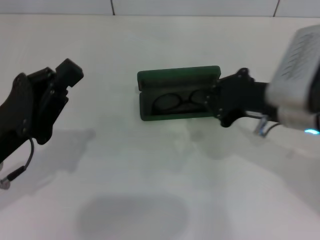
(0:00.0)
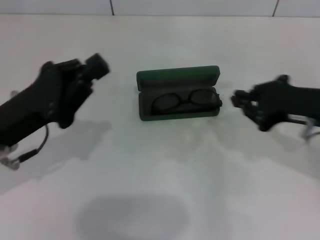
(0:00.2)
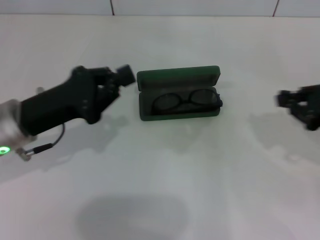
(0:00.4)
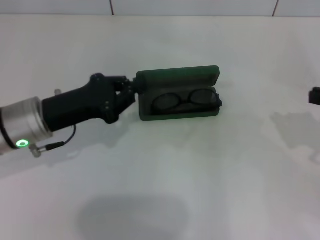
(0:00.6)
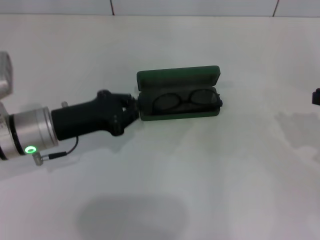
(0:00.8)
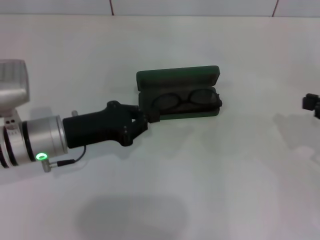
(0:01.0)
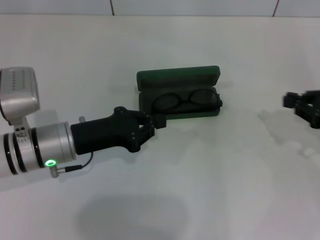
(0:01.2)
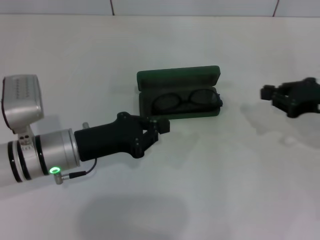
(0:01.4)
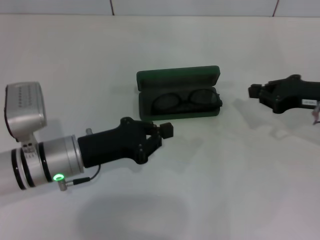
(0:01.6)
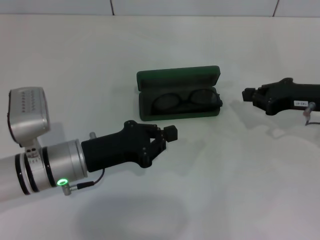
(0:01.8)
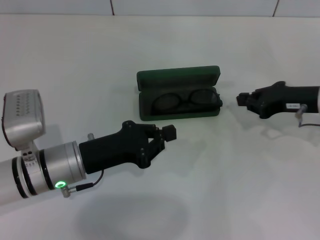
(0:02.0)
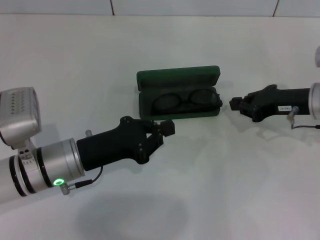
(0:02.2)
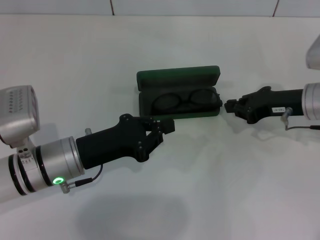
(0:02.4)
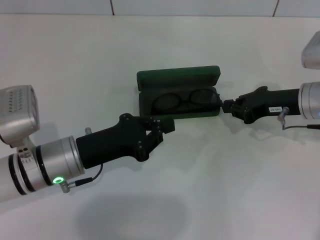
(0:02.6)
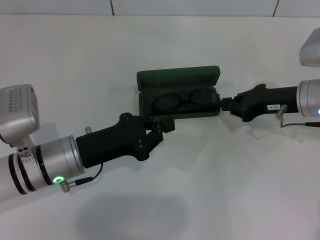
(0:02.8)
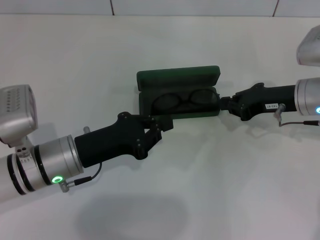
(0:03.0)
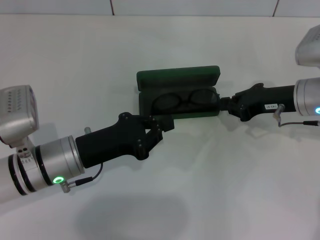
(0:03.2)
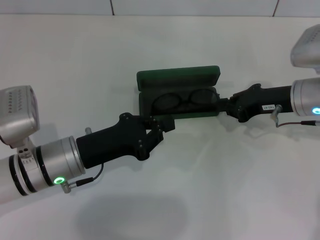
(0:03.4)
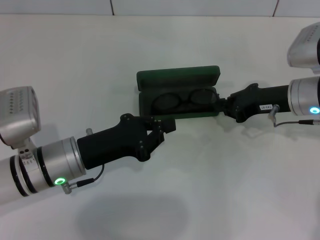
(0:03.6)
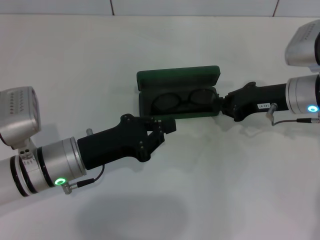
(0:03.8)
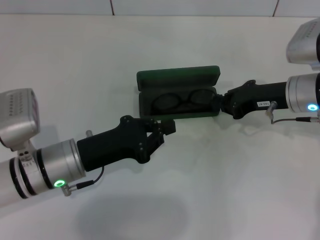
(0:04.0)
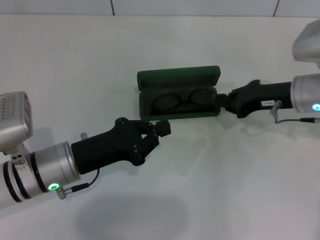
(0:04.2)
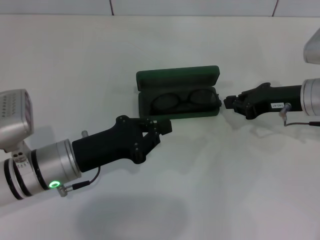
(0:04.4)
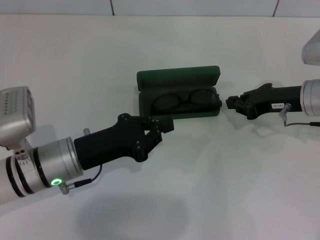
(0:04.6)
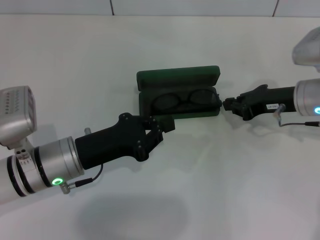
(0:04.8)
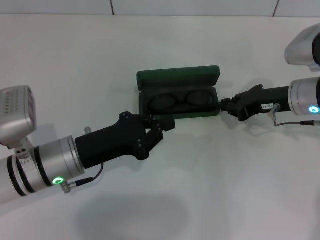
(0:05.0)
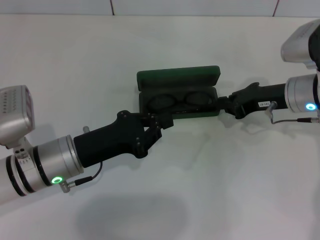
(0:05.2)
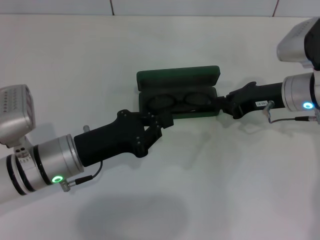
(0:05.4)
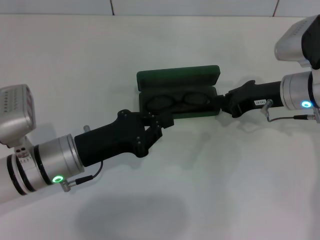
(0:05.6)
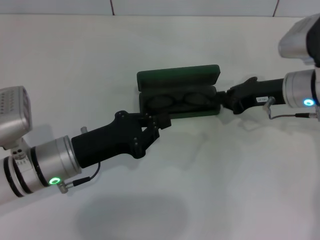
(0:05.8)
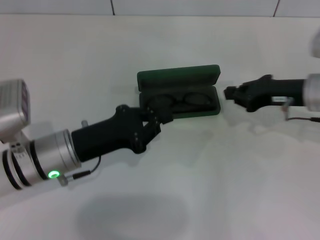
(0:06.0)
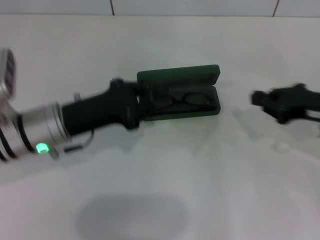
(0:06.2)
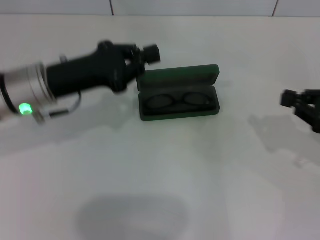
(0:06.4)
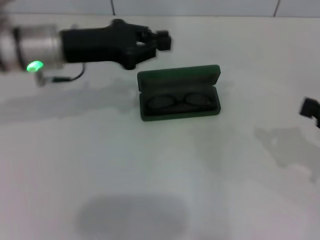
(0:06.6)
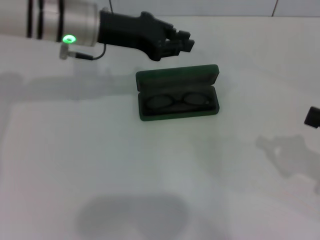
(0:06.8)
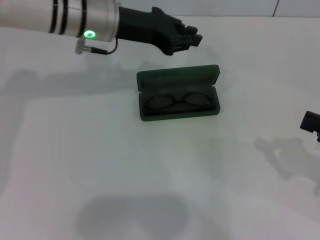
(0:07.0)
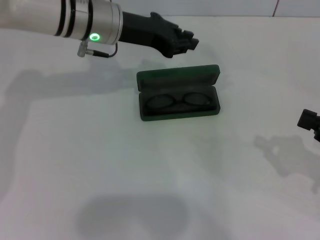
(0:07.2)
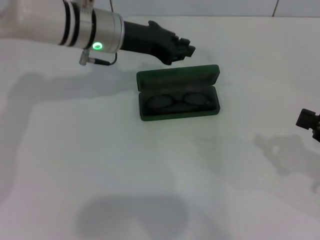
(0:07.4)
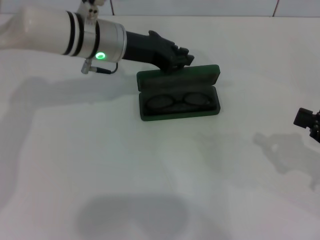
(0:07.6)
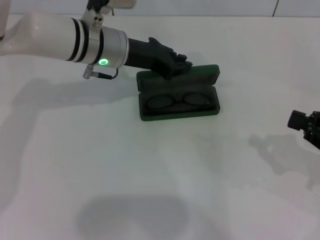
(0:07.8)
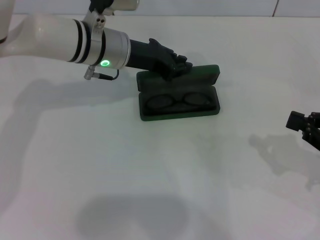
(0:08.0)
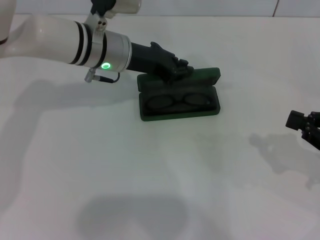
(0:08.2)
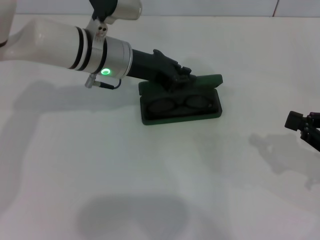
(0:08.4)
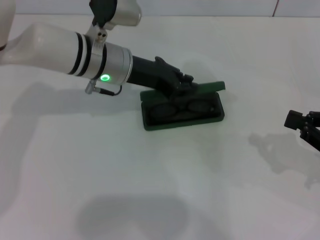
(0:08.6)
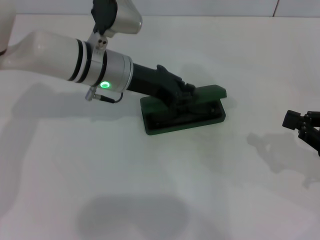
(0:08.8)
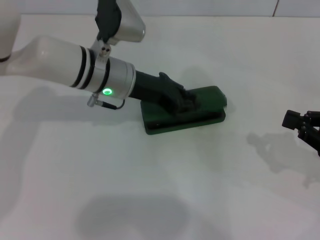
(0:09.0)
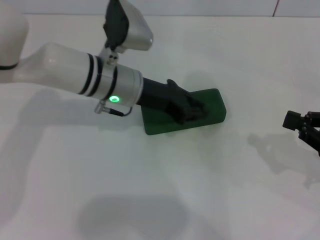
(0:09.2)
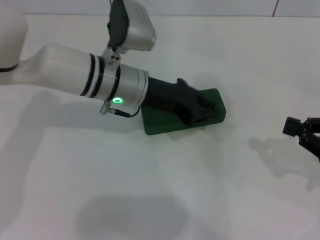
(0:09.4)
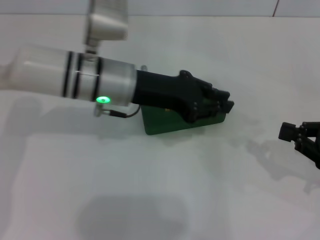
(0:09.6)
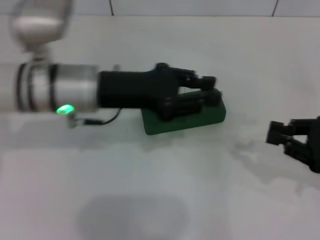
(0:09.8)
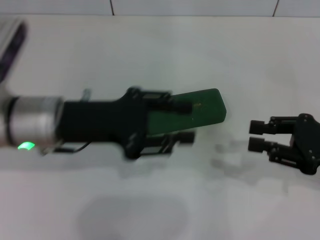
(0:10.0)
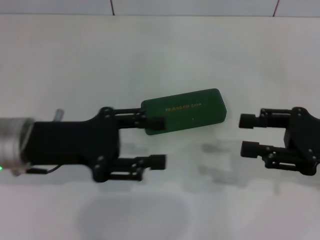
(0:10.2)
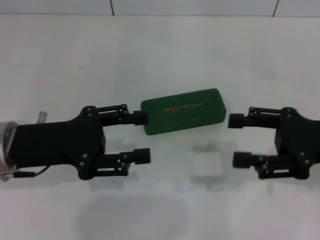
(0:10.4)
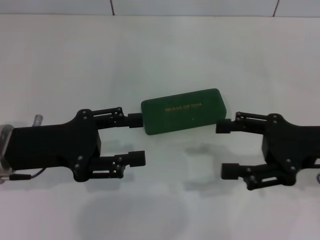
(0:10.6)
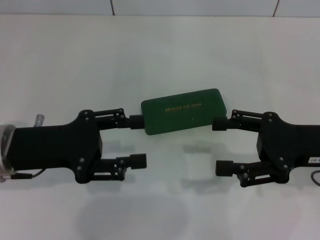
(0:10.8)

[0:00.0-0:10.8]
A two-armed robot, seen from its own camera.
Step, 0:00.0 to 0:08.8: Close the glasses case with your left hand.
0:00.0 to 0:01.6: Both grippers travel together to the right, forward and downward, approximately 10 cm.
0:01.6 to 0:03.0: The right gripper is displaced to the left by approximately 5 cm.
0:03.0 to 0:04.6: The grippers stay close to where they were, moving slightly.
0:04.6 to 0:06.2: The right gripper moves backward, roughly 5 cm, while the left gripper changes place by roughly 5 cm.
0:06.2 to 0:07.8: The left gripper is displaced forward and to the right by roughly 15 cm; the right gripper heads backward and to the right, covering about 10 cm.
0:07.8 to 0:09.2: The left gripper moves some 5 cm.
0:09.2 to 0:10.8: The left gripper goes some 20 cm to the left and backward, and opens; the right gripper shifts some 10 cm to the left, and opens its fingers.

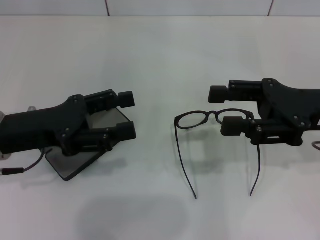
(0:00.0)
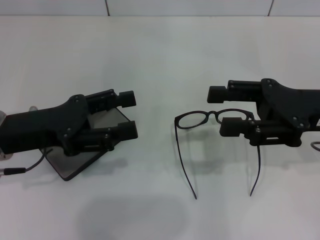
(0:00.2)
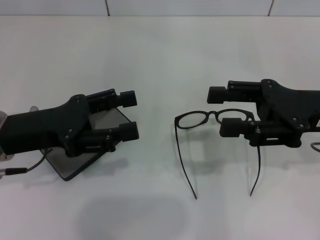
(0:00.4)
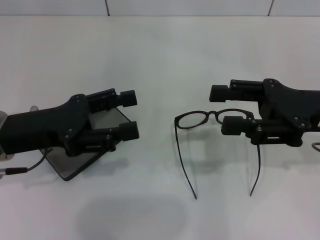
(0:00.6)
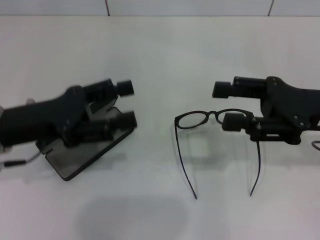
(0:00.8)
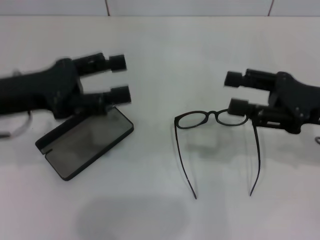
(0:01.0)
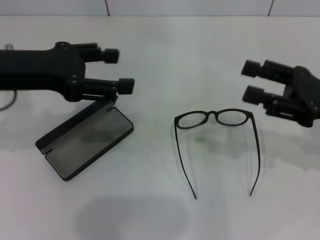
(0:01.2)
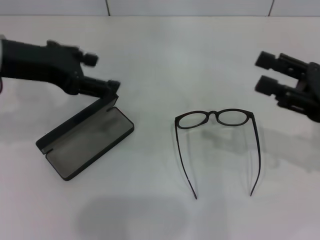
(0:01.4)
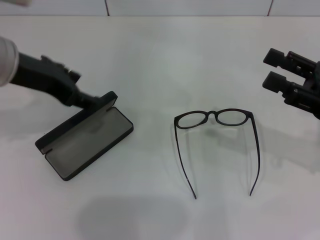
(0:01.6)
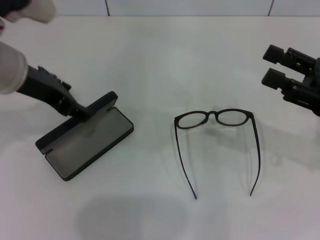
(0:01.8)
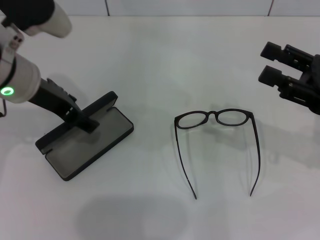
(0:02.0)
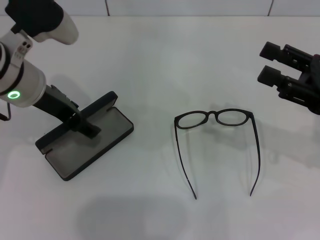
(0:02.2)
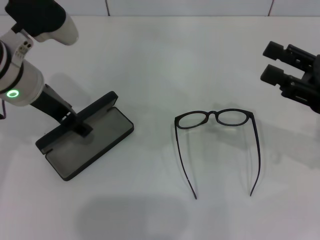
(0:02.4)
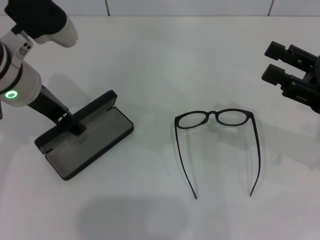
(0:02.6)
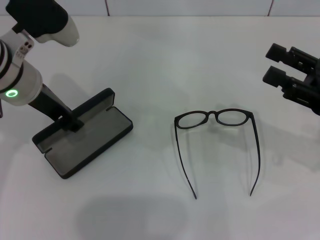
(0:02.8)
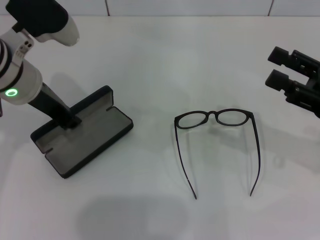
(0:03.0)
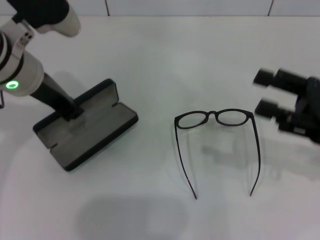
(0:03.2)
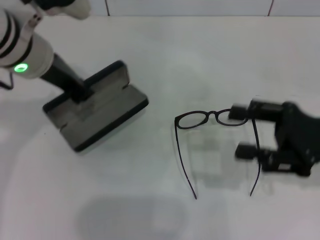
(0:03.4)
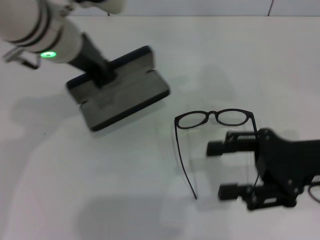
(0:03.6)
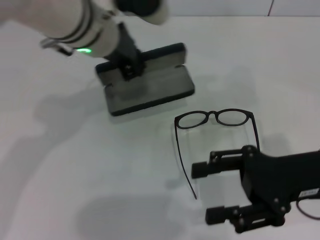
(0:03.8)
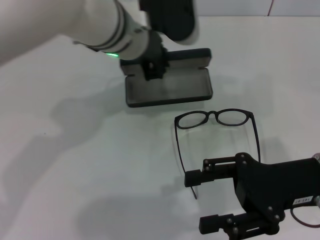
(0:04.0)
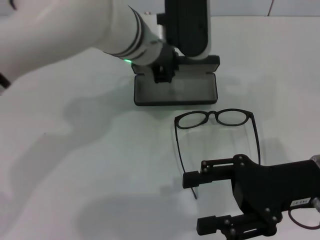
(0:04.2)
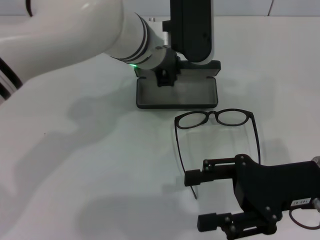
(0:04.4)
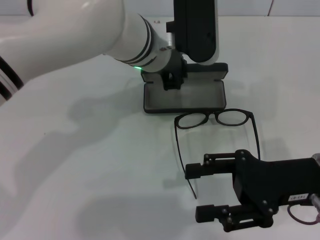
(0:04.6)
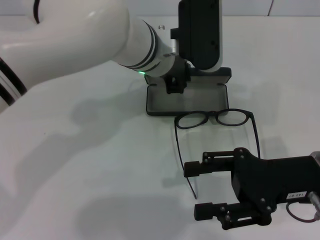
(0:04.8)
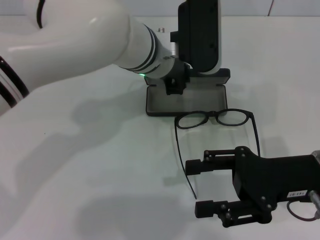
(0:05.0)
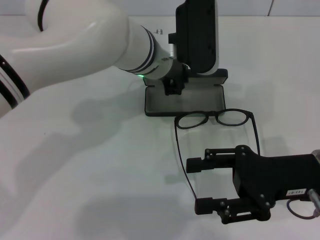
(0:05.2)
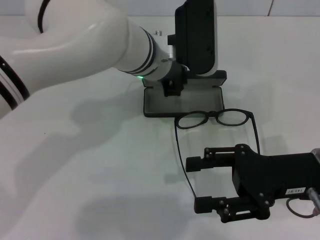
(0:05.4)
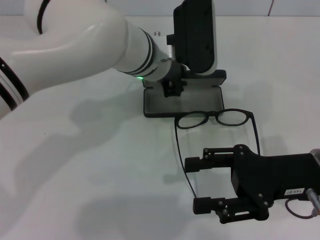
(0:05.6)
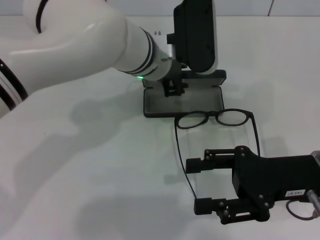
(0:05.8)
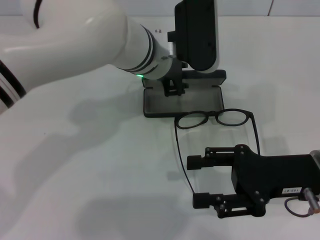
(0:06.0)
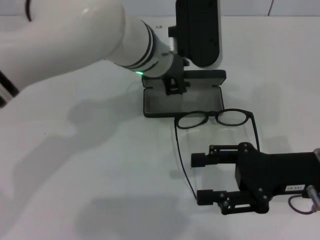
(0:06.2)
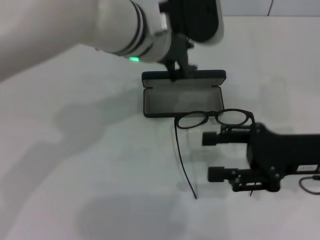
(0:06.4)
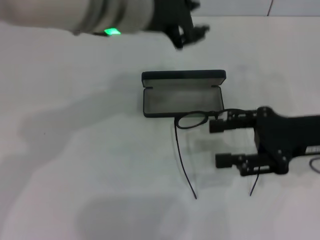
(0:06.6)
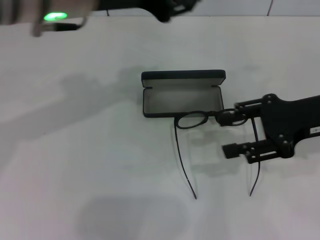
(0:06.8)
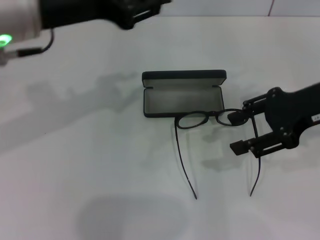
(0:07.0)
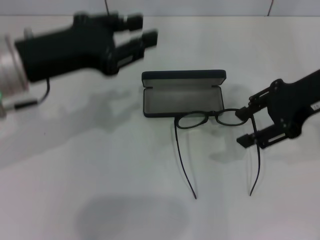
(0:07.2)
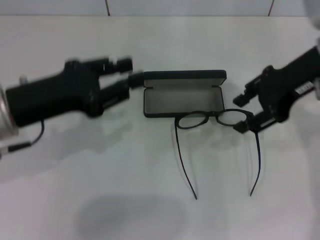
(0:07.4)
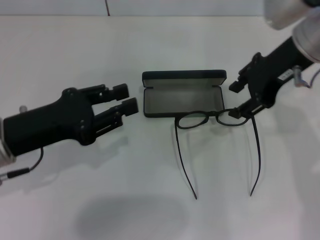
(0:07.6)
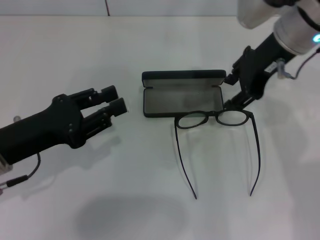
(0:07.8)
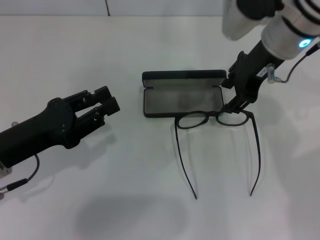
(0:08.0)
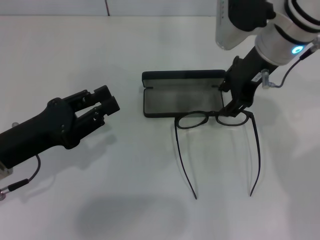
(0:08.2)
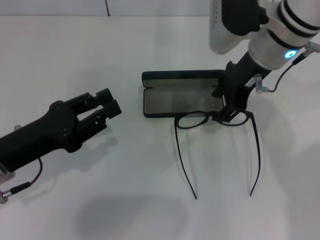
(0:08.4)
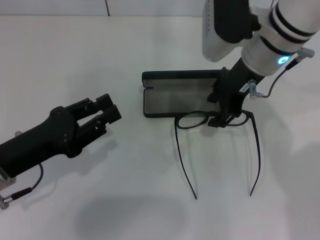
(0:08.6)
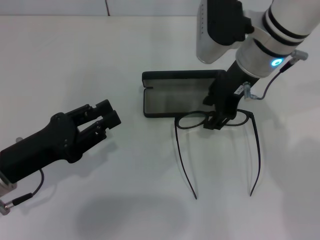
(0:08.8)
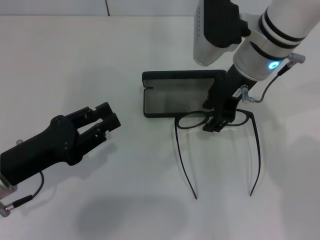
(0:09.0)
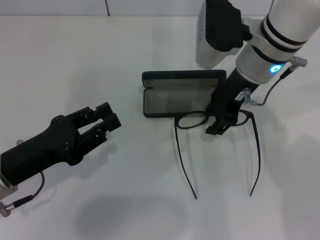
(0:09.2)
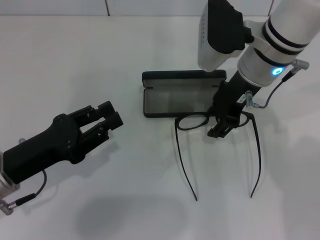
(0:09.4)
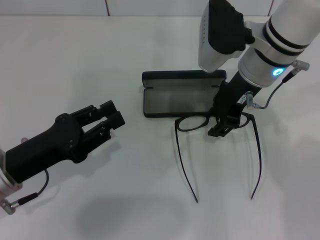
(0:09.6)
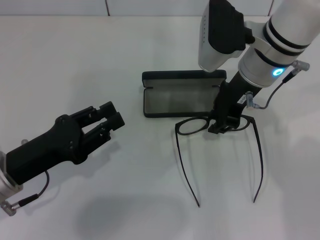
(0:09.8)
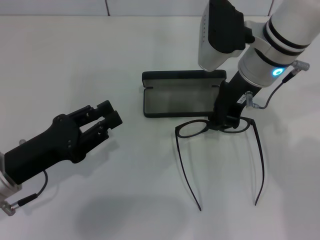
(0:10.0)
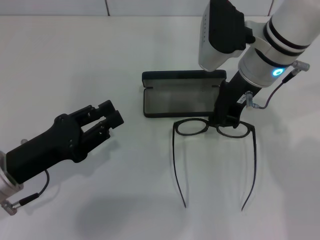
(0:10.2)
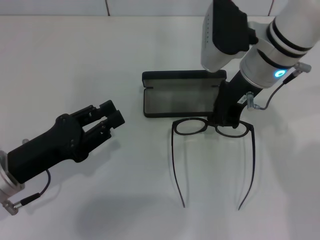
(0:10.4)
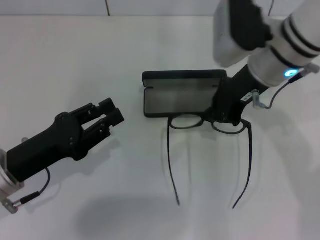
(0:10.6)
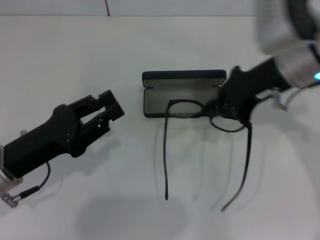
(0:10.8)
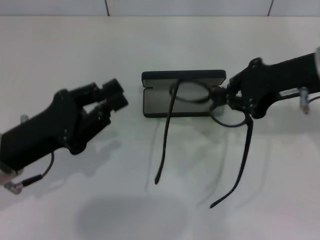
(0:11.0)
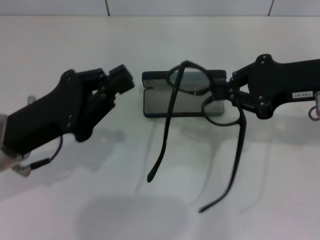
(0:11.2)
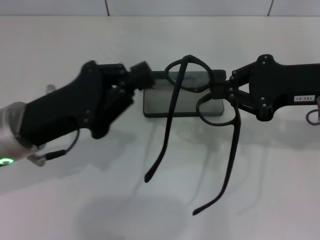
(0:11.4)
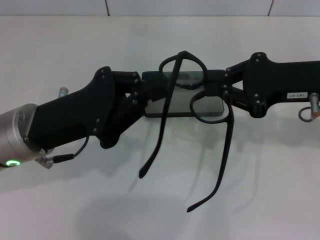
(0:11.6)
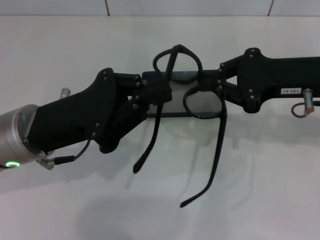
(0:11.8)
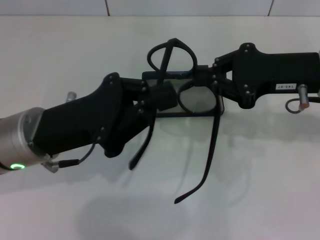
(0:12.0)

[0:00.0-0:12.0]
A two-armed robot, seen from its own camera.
Step, 0:00.0 to 0:02.8: Grab the glasses case with your left hand.
Step, 0:03.0 to 0:05.4: Place the glasses case in the center of the table with your left hand.
Step, 0:05.6 to 0:10.2: Grab the eyeglass frame with your right hand.
0:00.0 to 0:01.6: The right gripper heads to the right, covering roughly 5 cm. Meanwhile the left gripper goes approximately 10 cm upward and forward.
0:01.6 to 0:03.0: The left gripper closes up.
0:03.0 to 0:04.4: The right gripper is displaced to the left by some 10 cm; the left gripper goes about 15 cm to the right.
0:04.4 to 0:06.0: The grippers make only small movements.
0:06.0 to 0:07.6: The right gripper travels upward and forward by about 20 cm. Meanwhile the left gripper is displaced to the left and backward by about 25 cm.
0:07.6 to 0:09.0: The right gripper goes some 5 cm to the left. The left gripper shifts roughly 5 cm downward.
0:09.0 to 0:10.4: The right gripper closes its fingers.
0:10.4 to 0:12.0: The right gripper heads to the right and backward, covering approximately 10 cm. Meanwhile the left gripper moves to the right and upward, about 10 cm.
